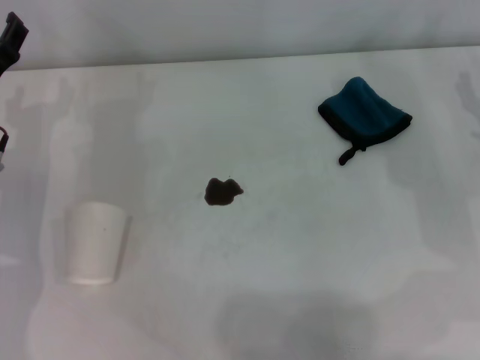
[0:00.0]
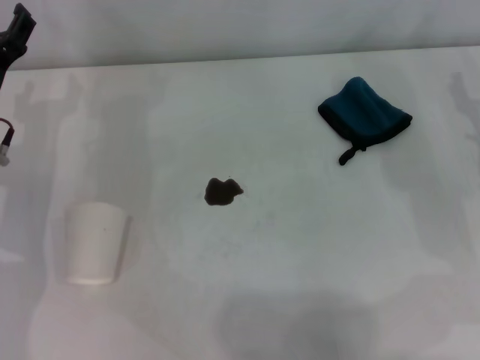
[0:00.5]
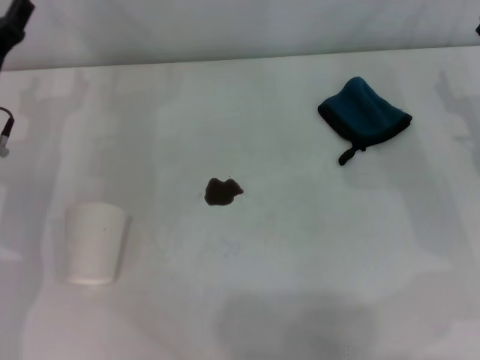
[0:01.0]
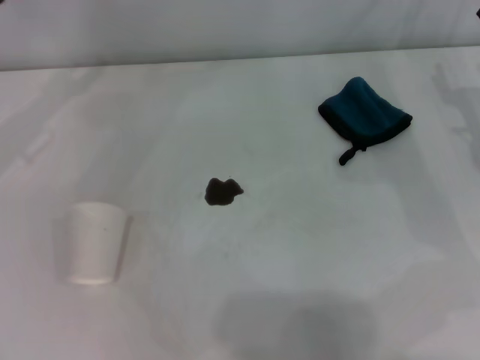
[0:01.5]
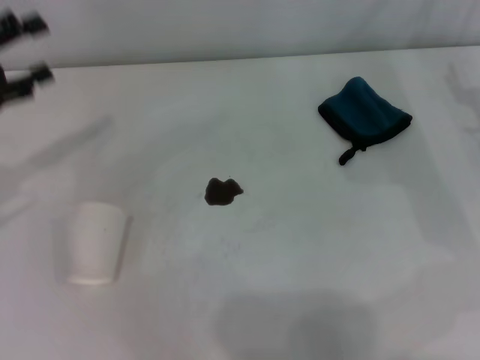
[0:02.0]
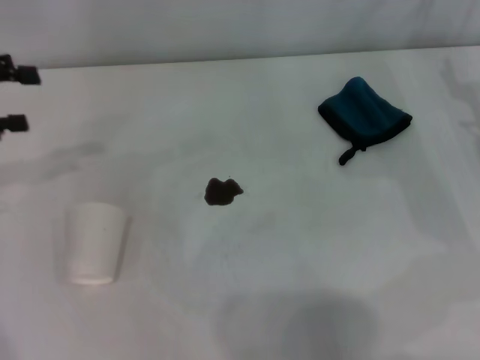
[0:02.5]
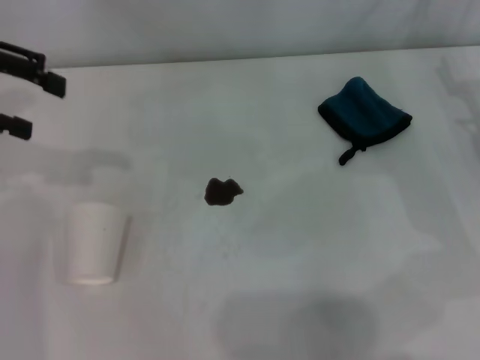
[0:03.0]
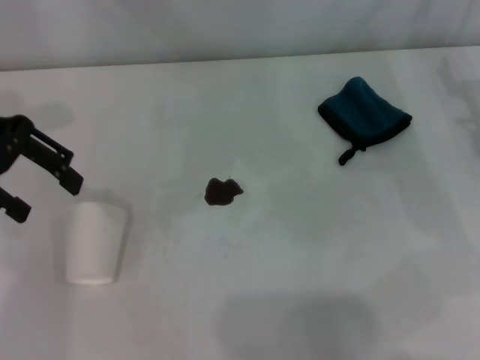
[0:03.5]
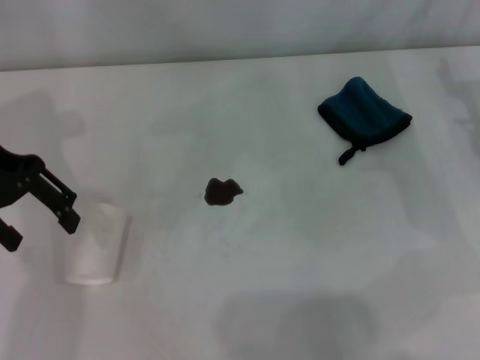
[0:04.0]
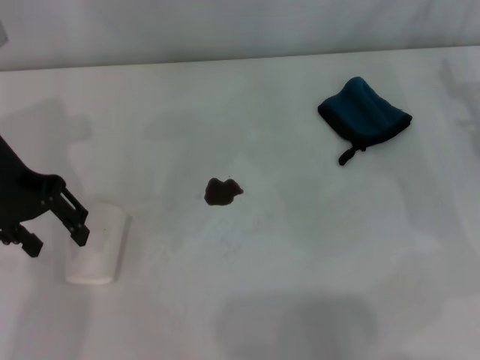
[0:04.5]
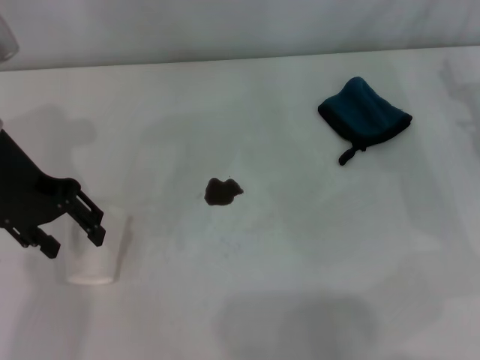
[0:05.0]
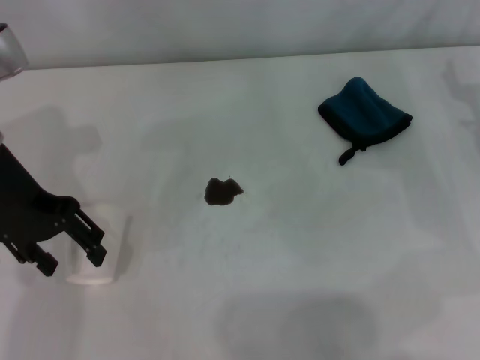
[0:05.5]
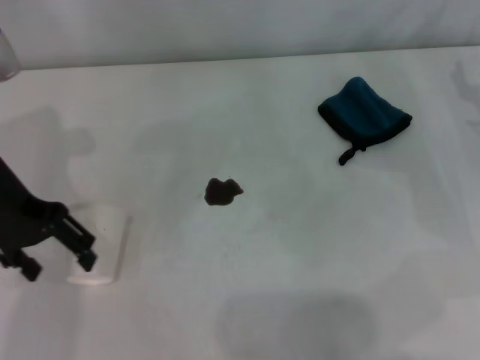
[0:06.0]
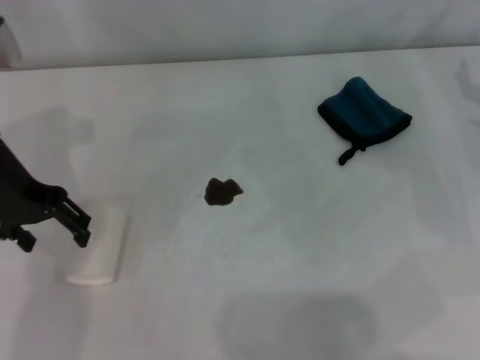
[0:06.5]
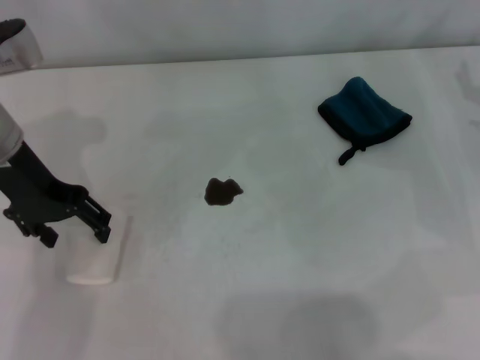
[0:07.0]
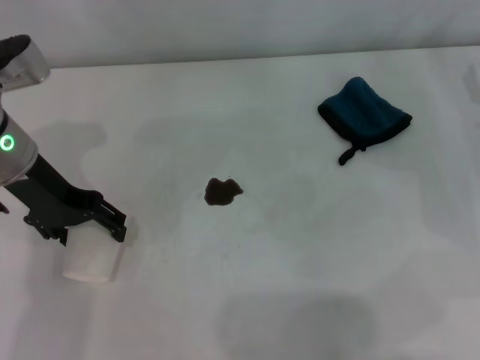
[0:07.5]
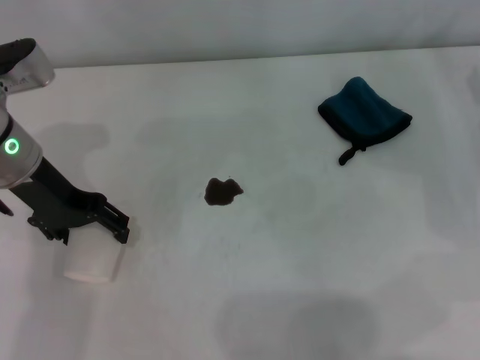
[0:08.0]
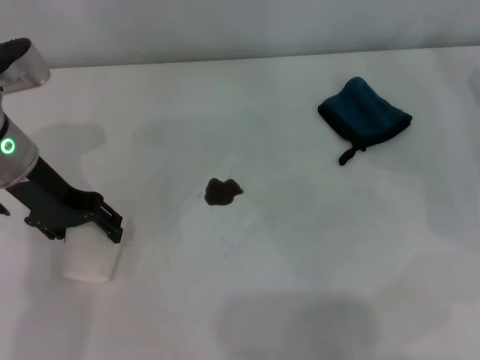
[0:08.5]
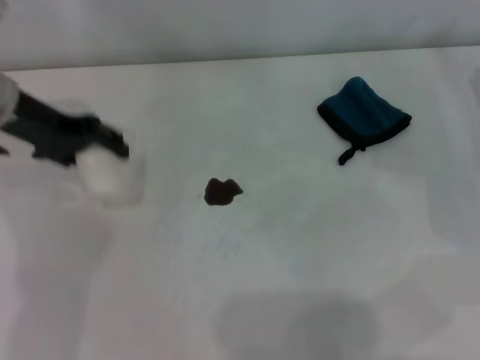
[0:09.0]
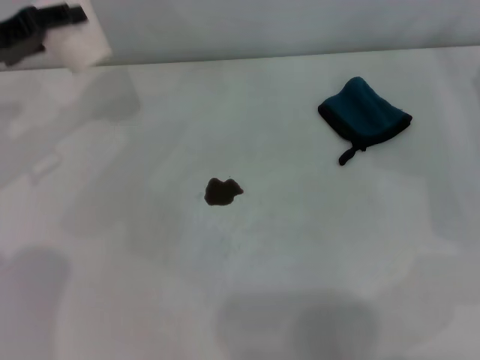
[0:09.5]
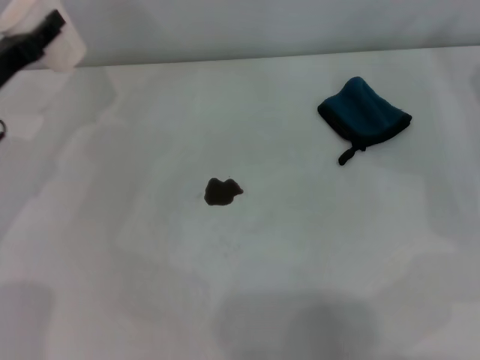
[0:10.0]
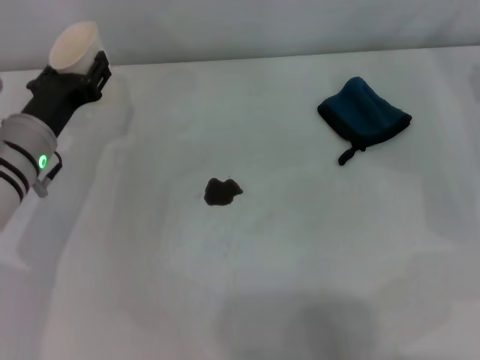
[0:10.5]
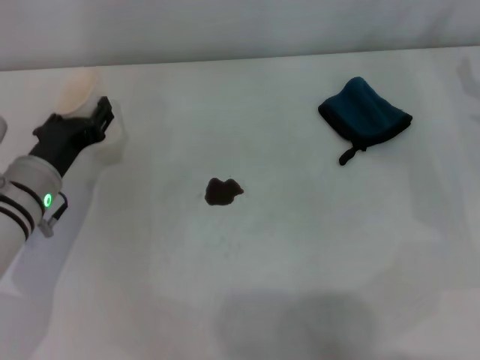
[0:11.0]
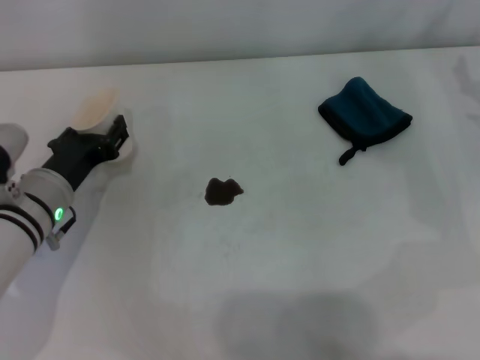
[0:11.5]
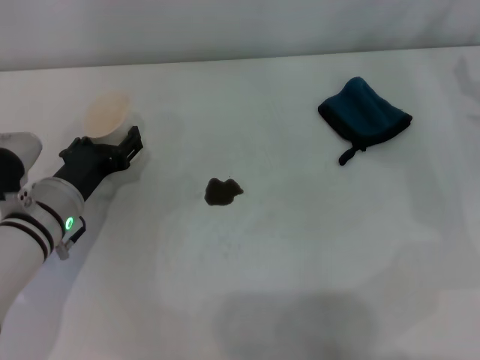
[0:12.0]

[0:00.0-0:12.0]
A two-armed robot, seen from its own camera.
Step, 0:00.0 to 0:08.5: Grasp the paper cup with the left gripper.
0:00.0 to 0:02.0: The left gripper shifts roughly 10 cm to the left and upward.
0:02.0 to 0:04.0: The left gripper travels upward and to the right by approximately 15 cm.
0:04.0 to 0:06.0: The left gripper travels downward by about 5 cm, and closes and opens again.
0:06.0 to 0:08.0: The left gripper changes place by some 5 cm.
0:08.0 to 0:10.0: The left gripper goes about 5 cm to the left, and closes its fingers.
0:10.0 to 0:12.0: The left gripper goes some 15 cm downward, to the right and backward.

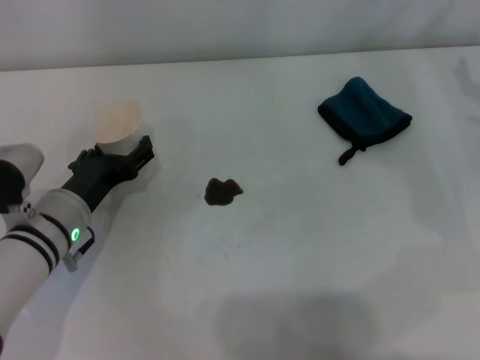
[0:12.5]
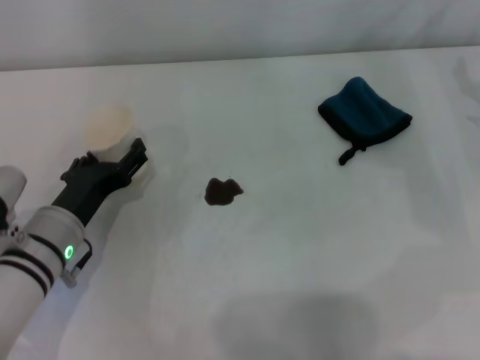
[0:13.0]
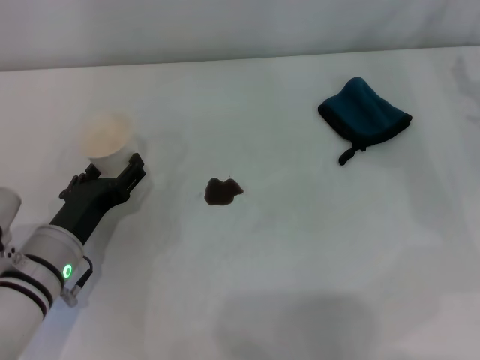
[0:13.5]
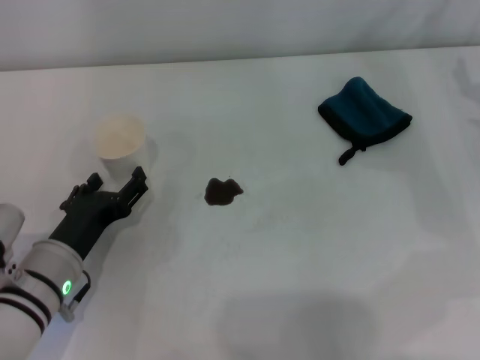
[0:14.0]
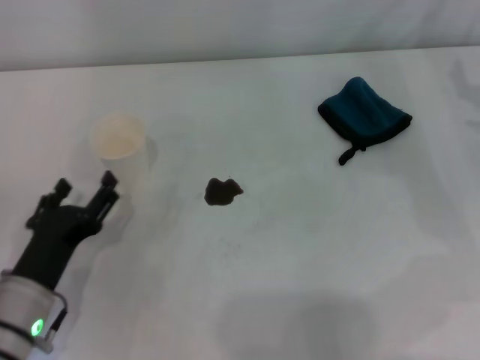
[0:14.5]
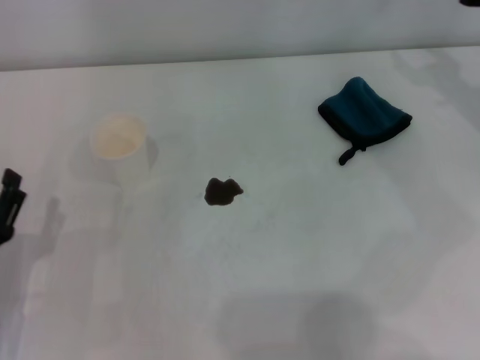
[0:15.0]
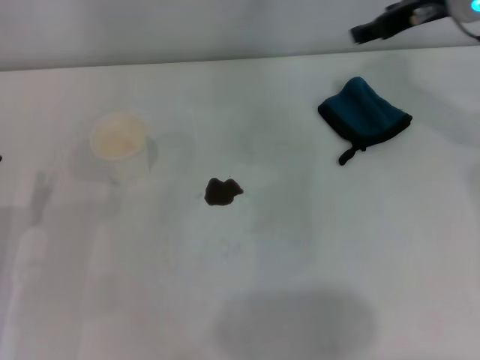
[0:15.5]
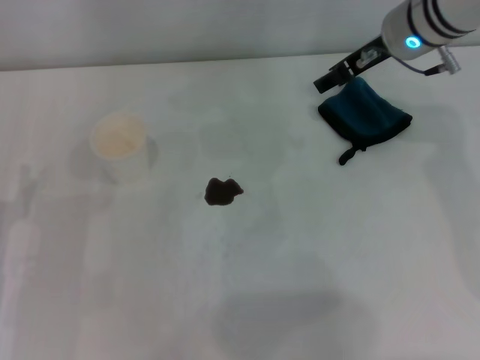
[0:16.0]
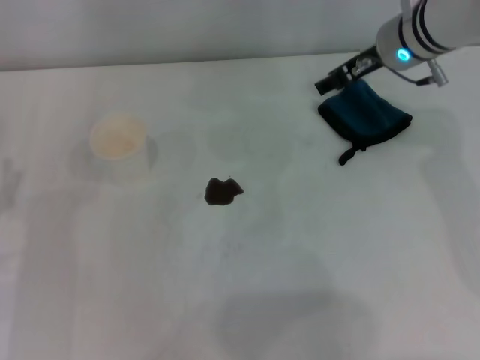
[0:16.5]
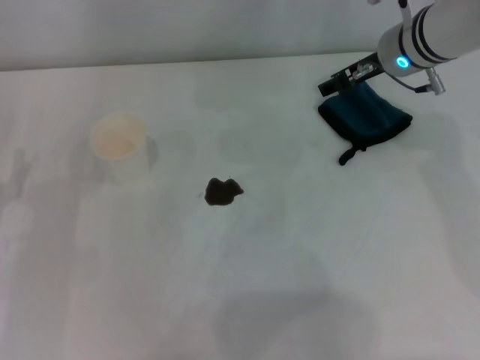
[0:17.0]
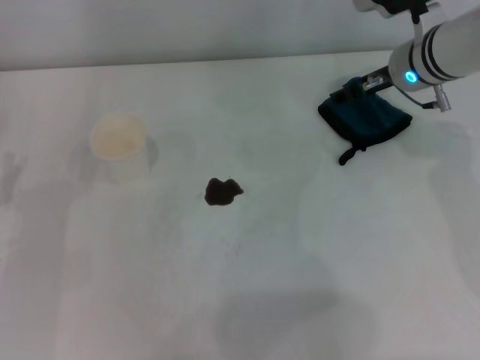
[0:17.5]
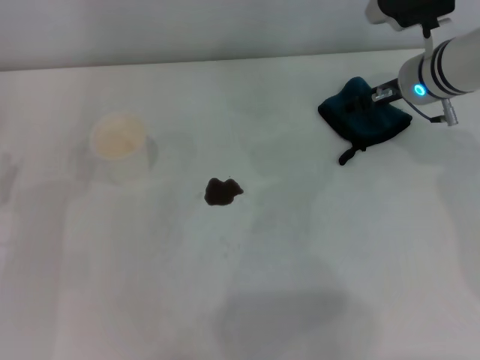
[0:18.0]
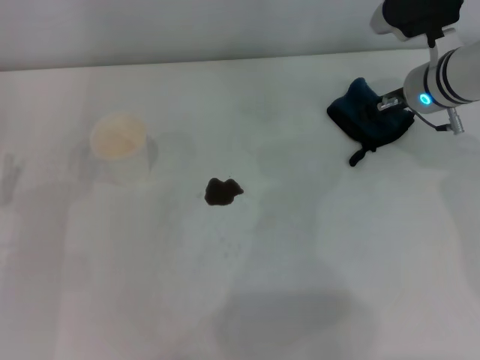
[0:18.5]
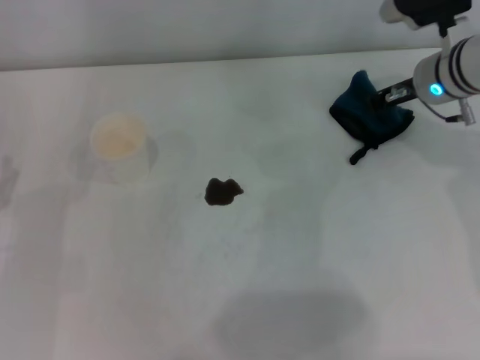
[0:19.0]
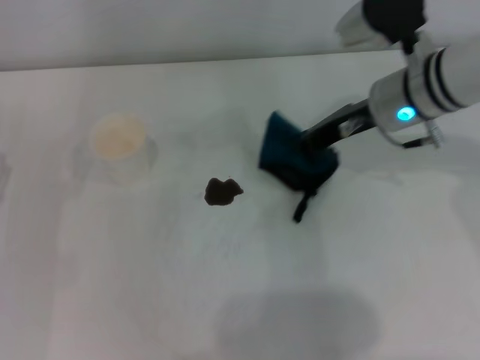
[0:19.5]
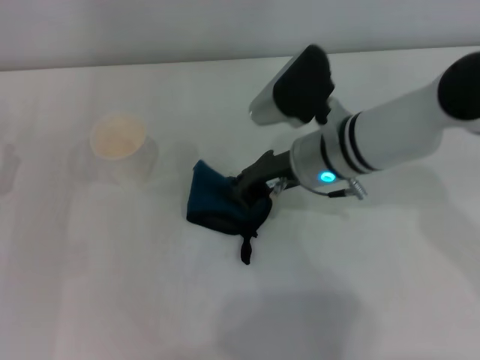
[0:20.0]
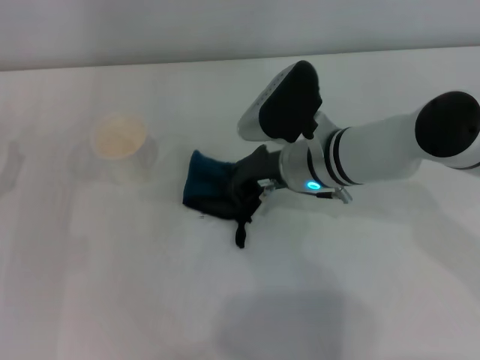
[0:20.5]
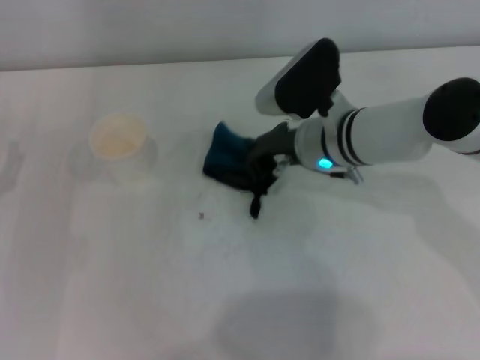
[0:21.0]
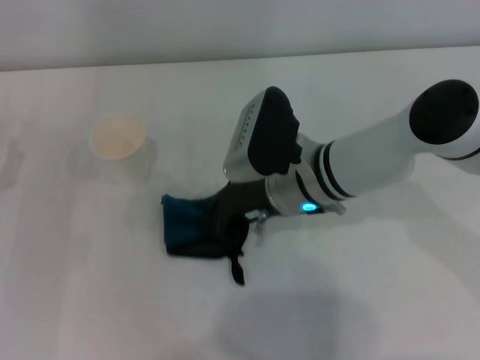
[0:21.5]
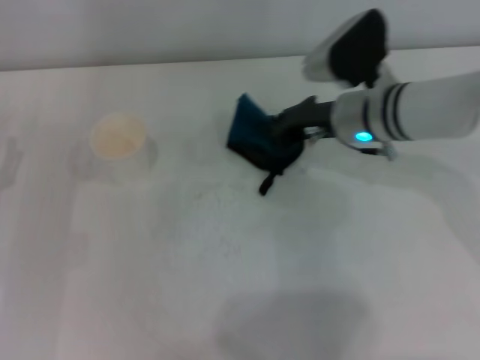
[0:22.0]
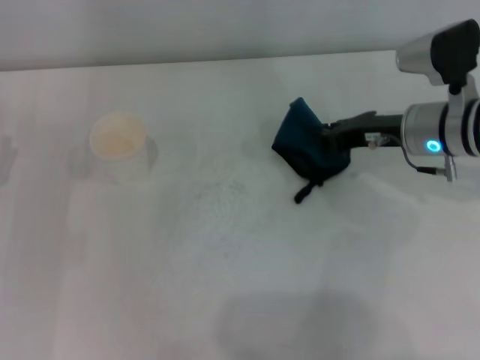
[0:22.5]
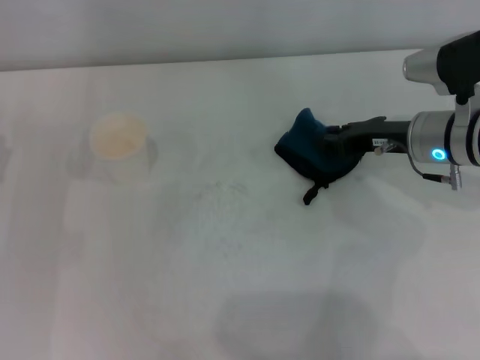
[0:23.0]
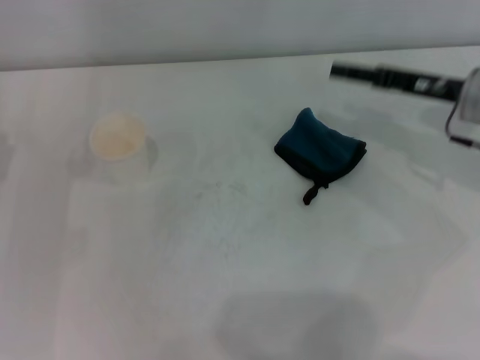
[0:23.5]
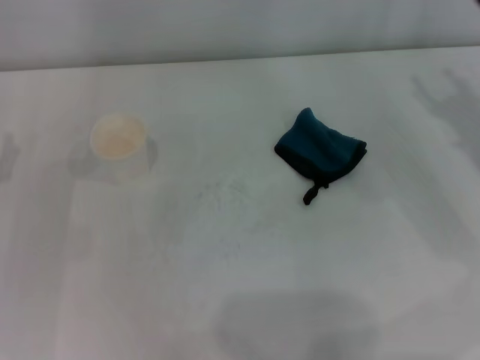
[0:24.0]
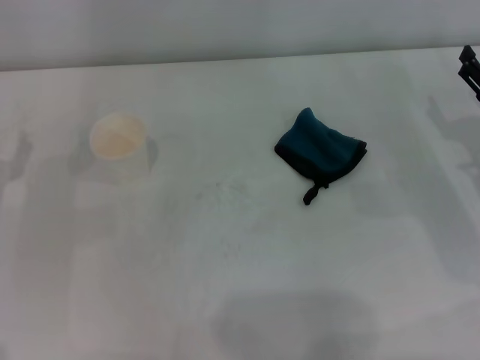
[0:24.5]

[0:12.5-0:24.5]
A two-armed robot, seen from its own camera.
Step, 0:14.0 to 0:18.5: Grasp the rag with the right gripper.
Step, 0:19.0 to 0:22.0: Wipe the stains off the table with the right gripper.
Step, 0:22.5 to 0:23.0: Place the rag on the table with the right gripper.
0:12.5 to 0:14.5: The left gripper travels backward by roughly 10 cm.
0:14.5 to 0:16.5: The left gripper travels to the left by some 10 cm, while the right gripper shifts about 20 cm to the left, forward and upward.
0:16.5 to 0:18.5: The right gripper moves about 5 cm, and closes.
0:18.5 to 0:20.5: The right gripper heads to the left and backward, covering approximately 15 cm, and closes up.
0:20.5 to 0:22.5: The right gripper shifts some 15 cm to the right.
0:22.5 to 0:24.5: The right gripper shifts some 10 cm to the right and backward, and opens.
